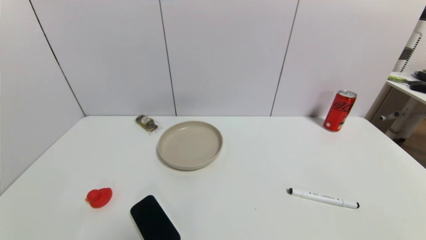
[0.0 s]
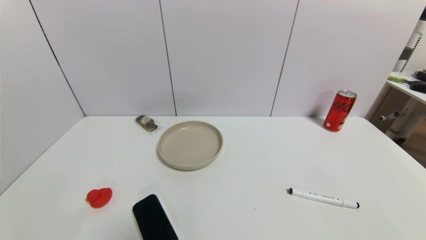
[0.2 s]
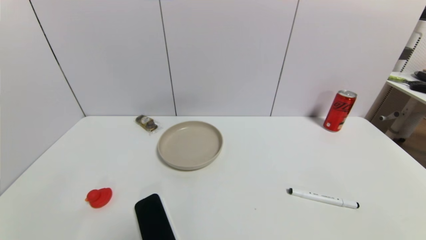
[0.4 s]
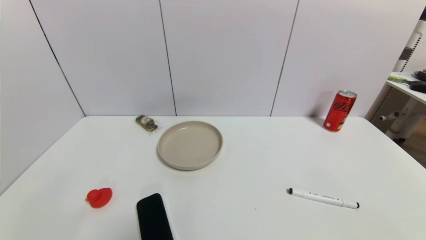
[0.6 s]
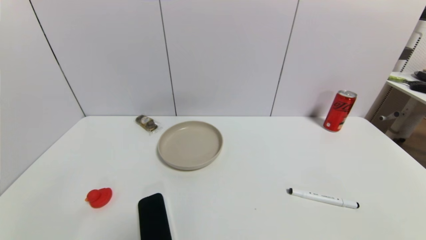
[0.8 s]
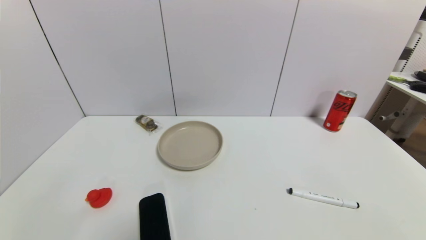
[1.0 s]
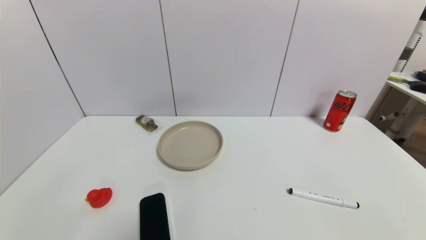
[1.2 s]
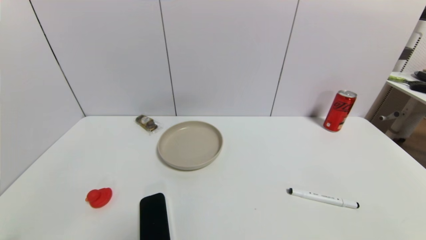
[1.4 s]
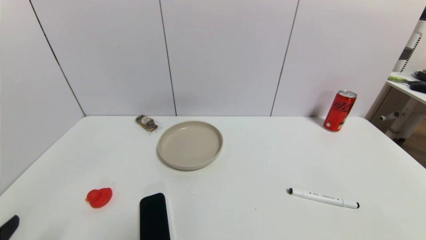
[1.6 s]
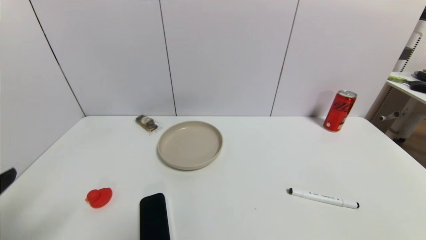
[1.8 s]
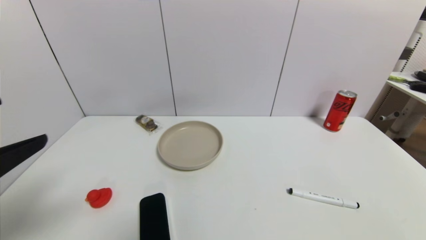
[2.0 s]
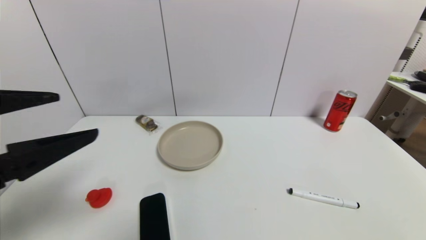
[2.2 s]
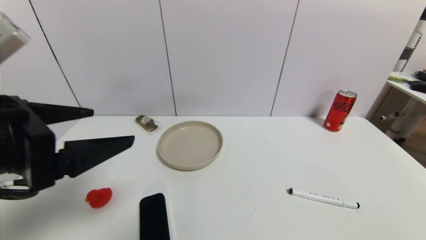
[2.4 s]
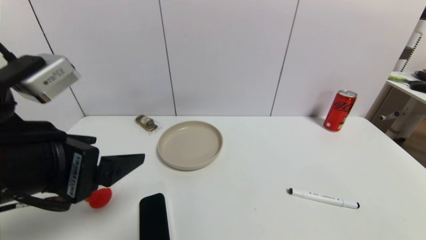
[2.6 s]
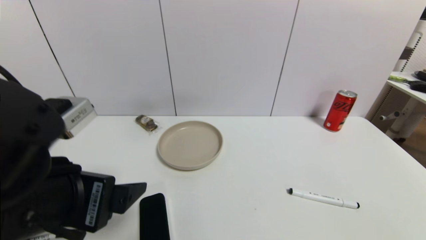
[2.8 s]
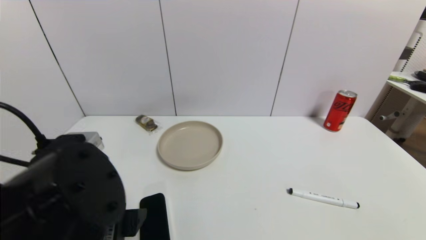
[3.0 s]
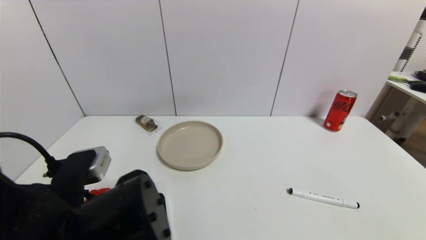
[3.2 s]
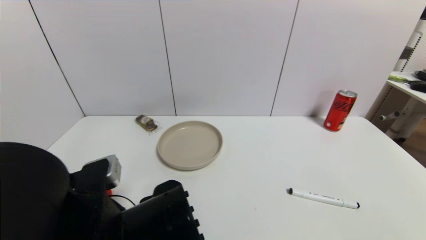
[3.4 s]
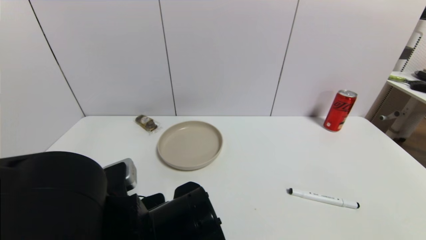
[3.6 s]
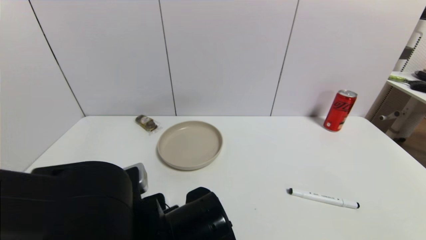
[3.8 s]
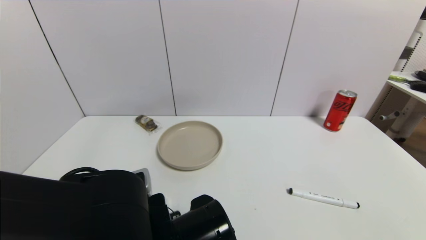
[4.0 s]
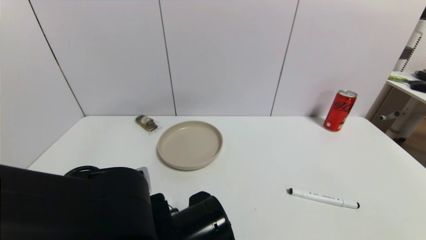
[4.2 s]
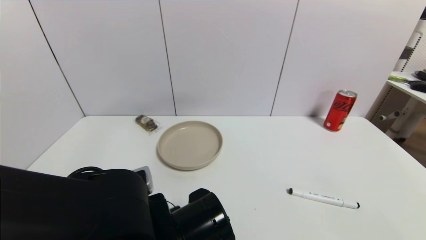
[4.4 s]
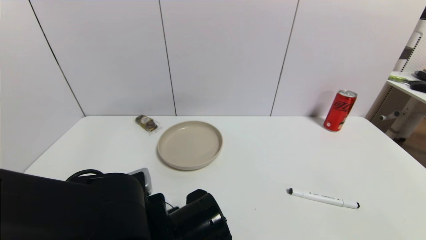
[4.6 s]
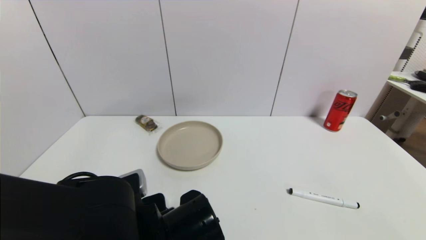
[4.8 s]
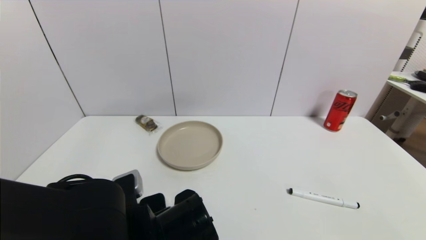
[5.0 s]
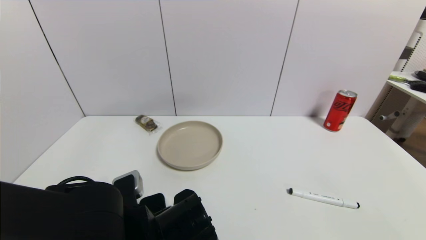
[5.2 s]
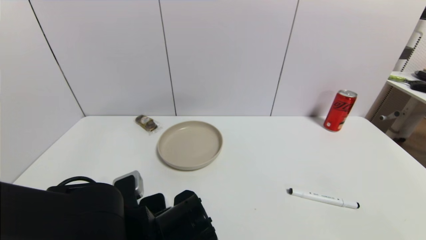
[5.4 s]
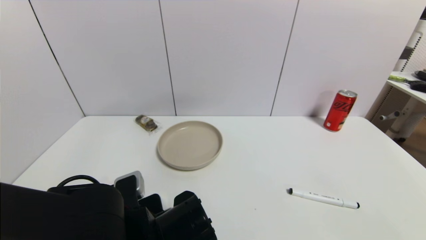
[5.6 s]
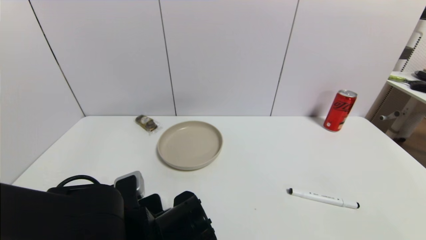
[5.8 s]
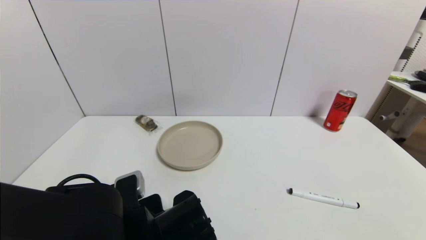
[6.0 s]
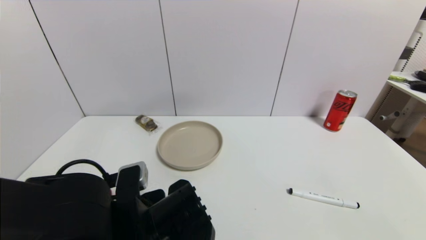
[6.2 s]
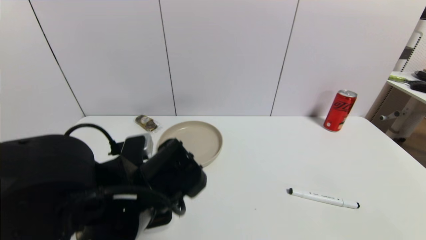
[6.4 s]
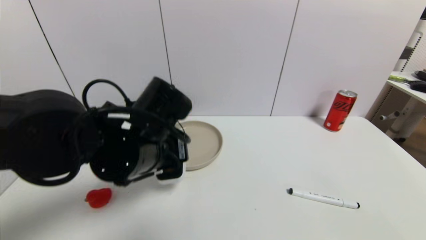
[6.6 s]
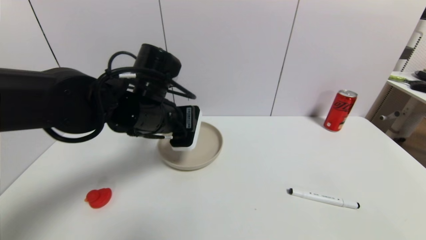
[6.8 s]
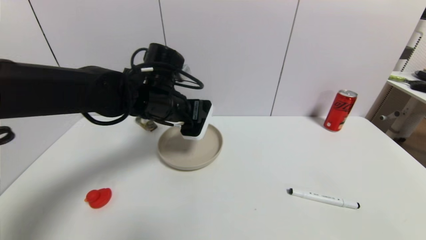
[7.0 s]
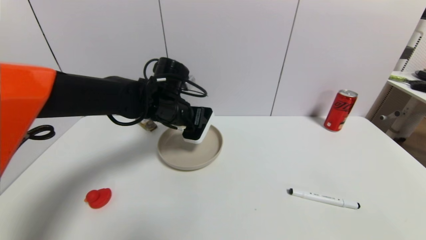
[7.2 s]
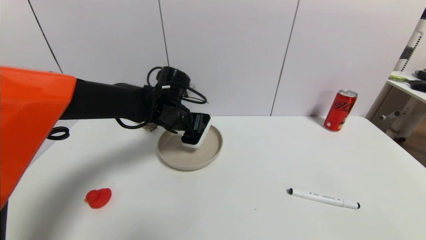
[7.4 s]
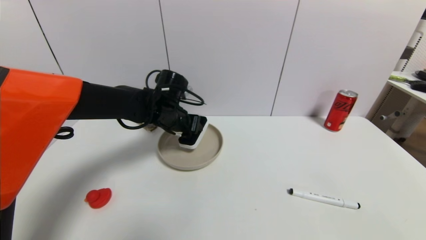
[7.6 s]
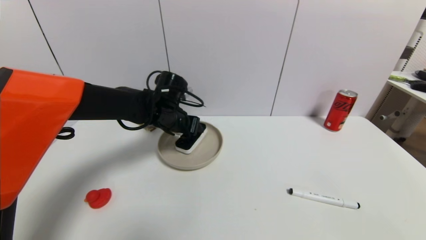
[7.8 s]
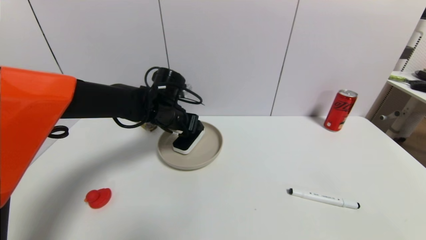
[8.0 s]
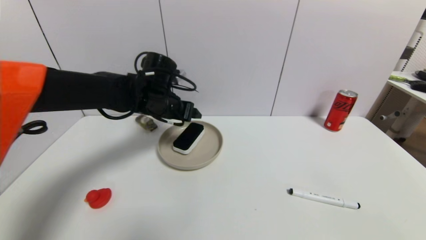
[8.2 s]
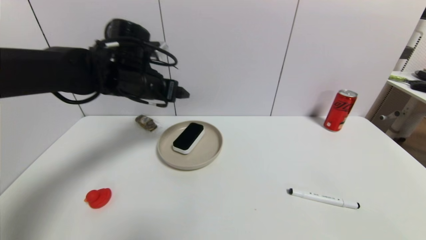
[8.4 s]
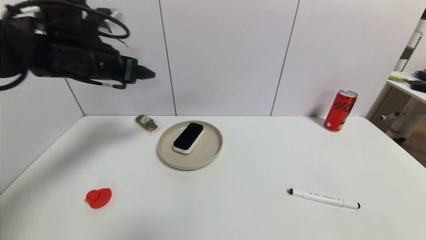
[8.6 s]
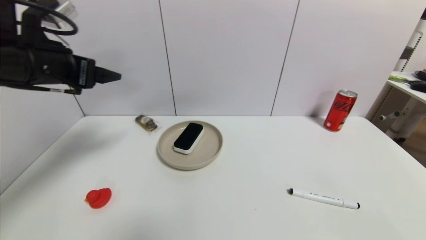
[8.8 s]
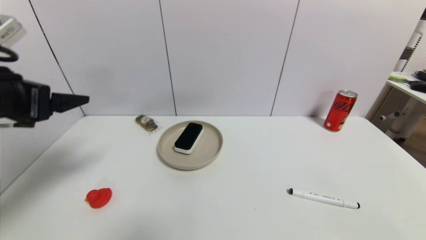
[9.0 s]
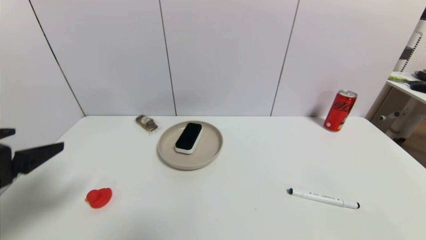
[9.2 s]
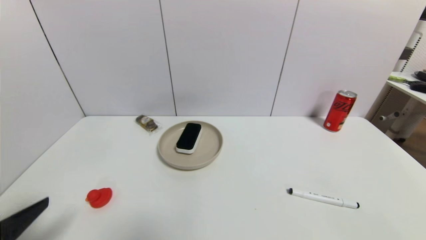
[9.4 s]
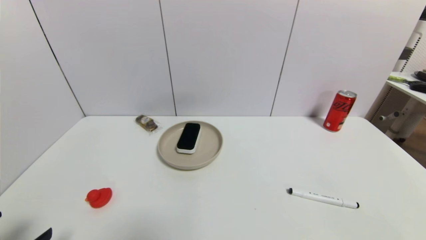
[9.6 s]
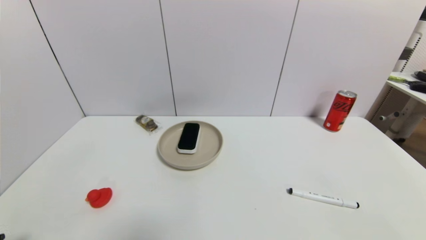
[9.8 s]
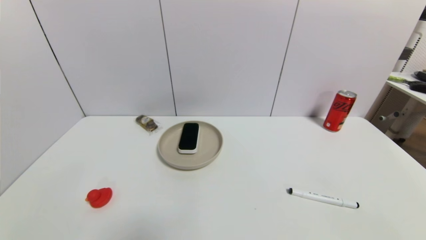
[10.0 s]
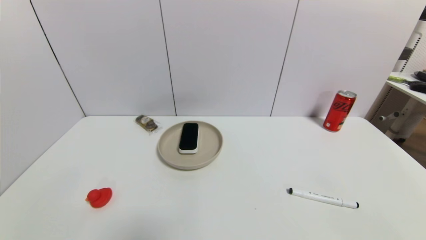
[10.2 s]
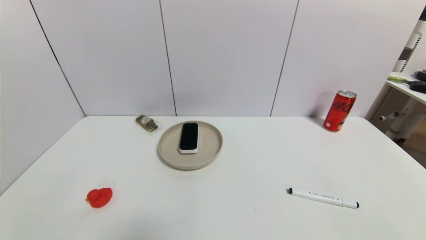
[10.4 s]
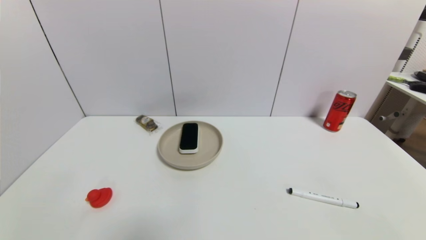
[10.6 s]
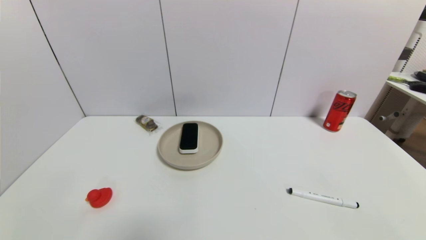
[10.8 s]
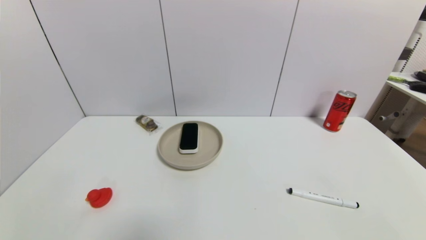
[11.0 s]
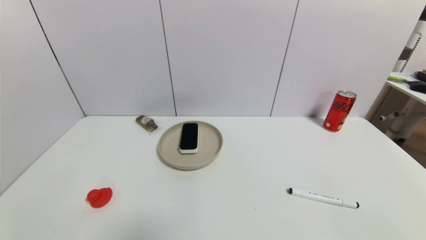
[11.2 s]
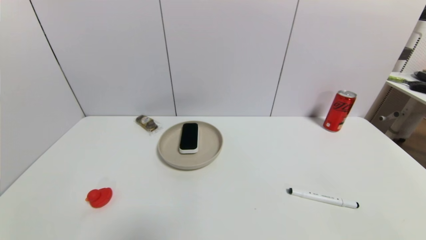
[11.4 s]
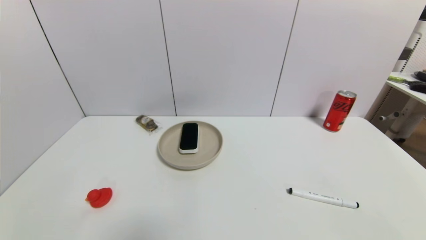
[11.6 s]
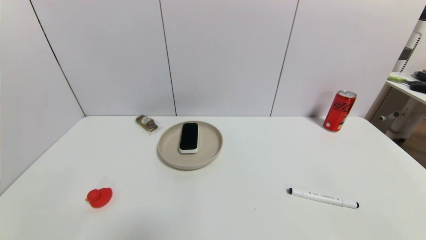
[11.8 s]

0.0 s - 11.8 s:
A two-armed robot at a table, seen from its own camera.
Task of the whole recording: use a gripper to pick the target object and place on the brown plate.
Step, 0.0 s - 5.8 s: Grasp the blackboard erasure with the left gripper.
Step, 6.0 s - 8.2 s: Place the blackboard erasure on the brown plate with the left gripper.
0.0 s - 1.4 s: The left gripper moves about 5 cm.
1.4 s - 3.0 s: The left gripper heads to the right, upward and forward, covering approximately 20 cm.
3.0 s - 4.4 s: The left gripper shifts about 10 cm downward and to the right.
4.4 s - 6.0 s: The left gripper closes up.
6.0 s - 7.4 s: The left gripper is displaced forward by about 25 cm.
7.4 s - 8.8 s: The left gripper moves to the left, upward and backward, roughly 25 cm, and opens up.
8.8 s - 10.4 s: The left gripper moves backward and downward, roughly 40 cm.
10.4 s - 11.8 s: Both grippers stay put.
